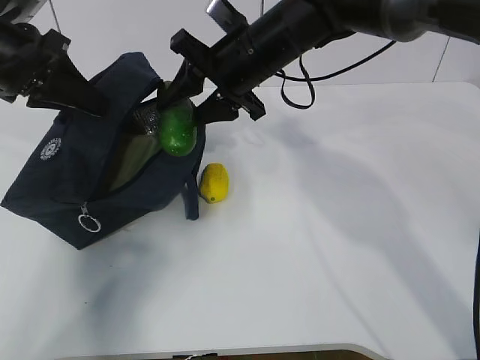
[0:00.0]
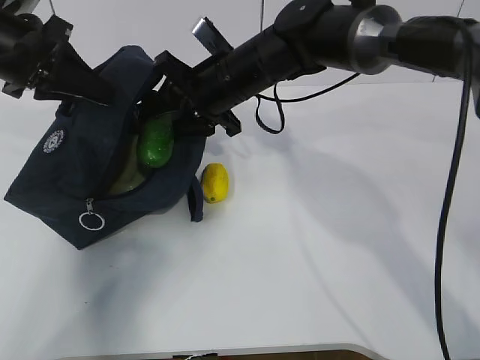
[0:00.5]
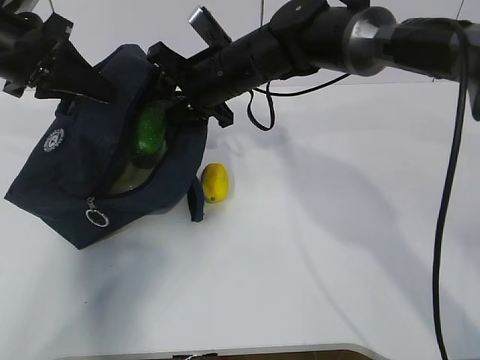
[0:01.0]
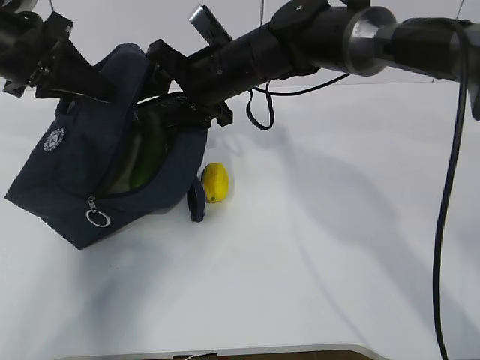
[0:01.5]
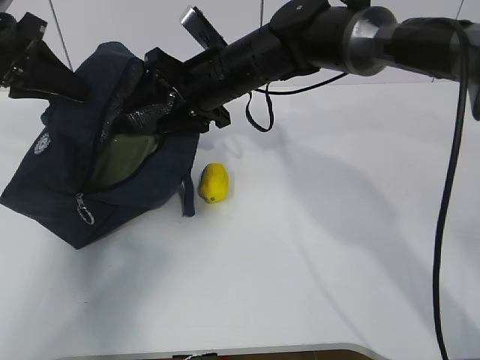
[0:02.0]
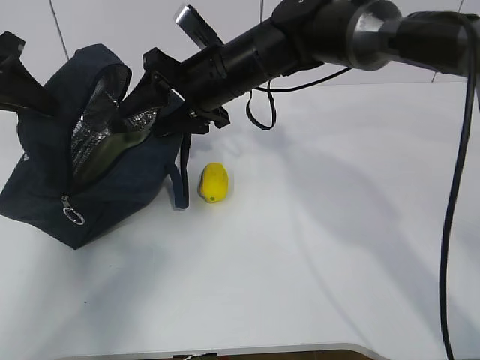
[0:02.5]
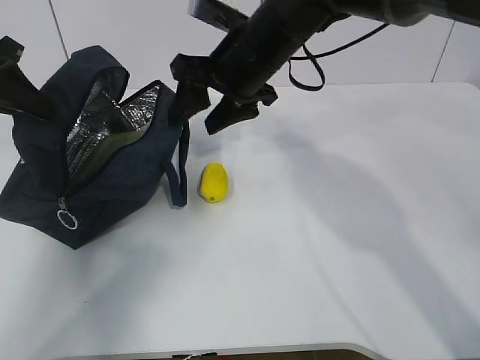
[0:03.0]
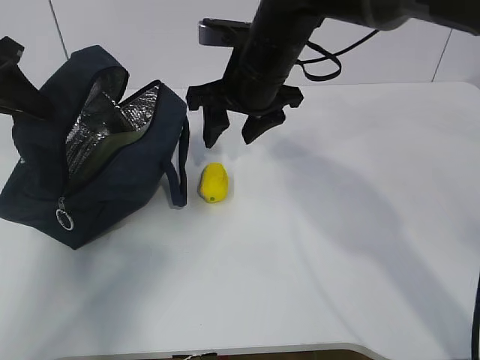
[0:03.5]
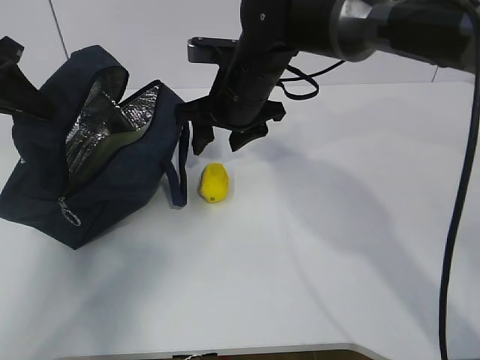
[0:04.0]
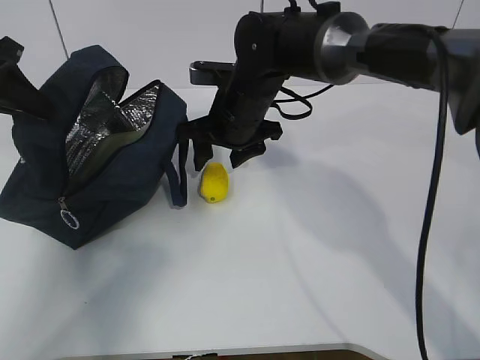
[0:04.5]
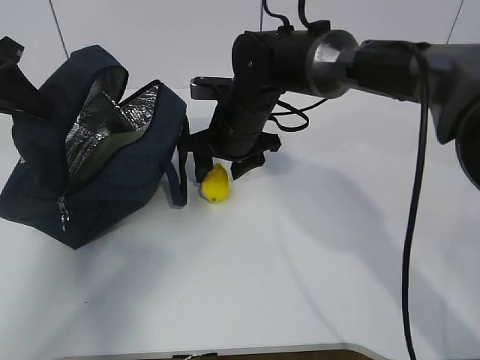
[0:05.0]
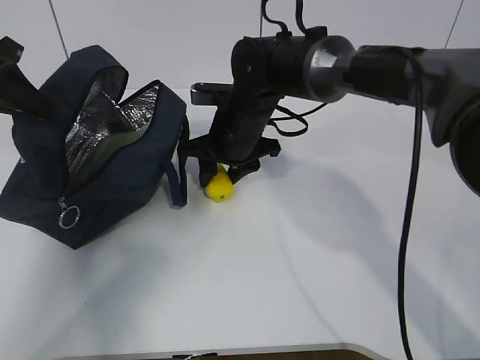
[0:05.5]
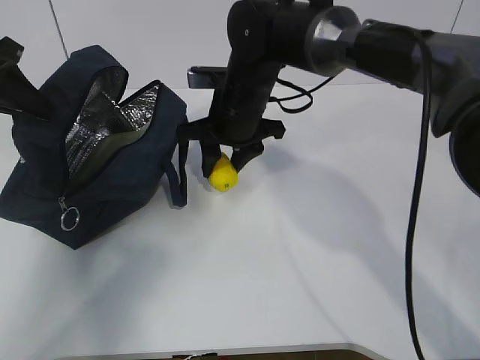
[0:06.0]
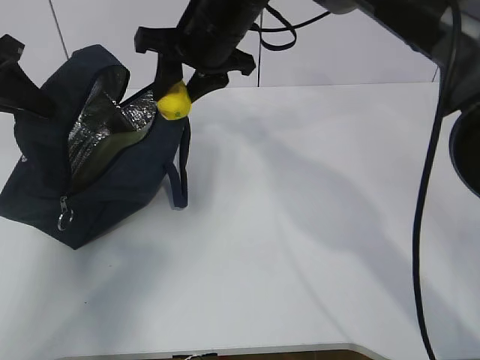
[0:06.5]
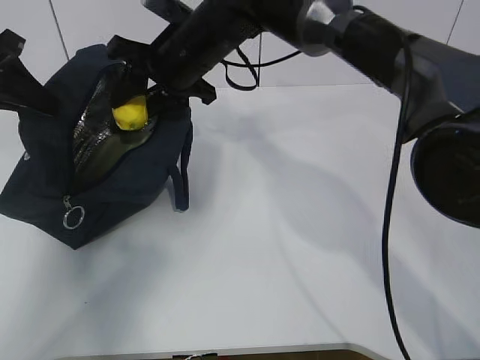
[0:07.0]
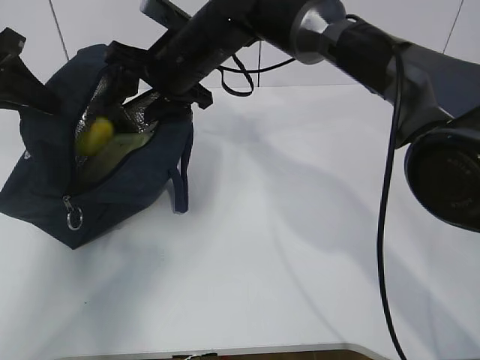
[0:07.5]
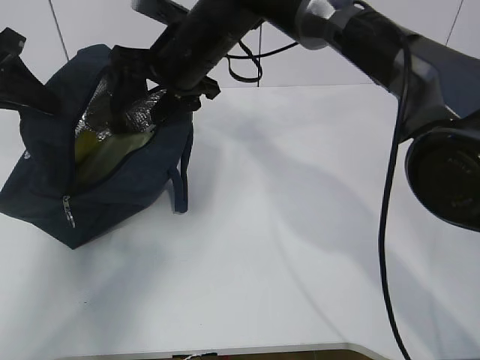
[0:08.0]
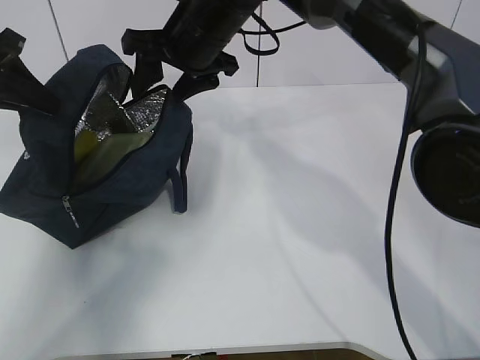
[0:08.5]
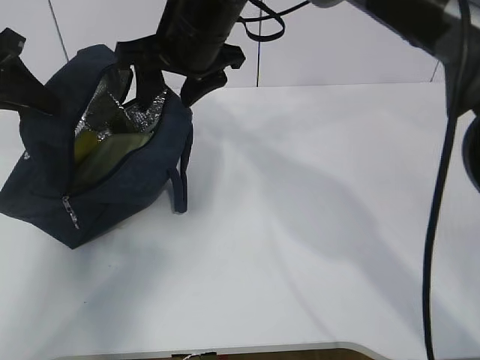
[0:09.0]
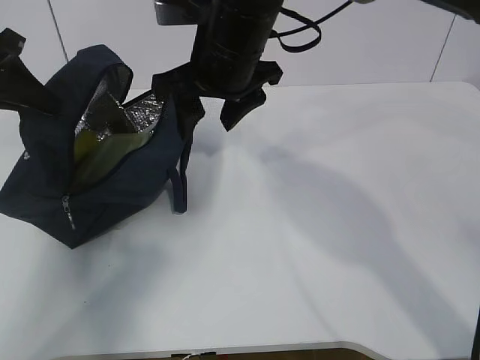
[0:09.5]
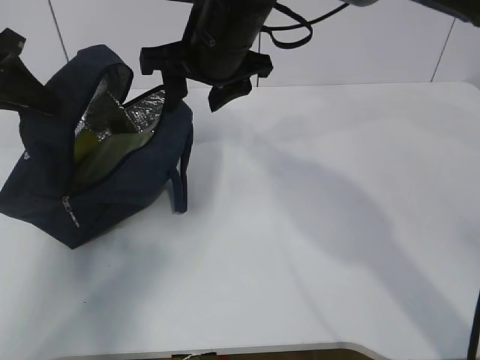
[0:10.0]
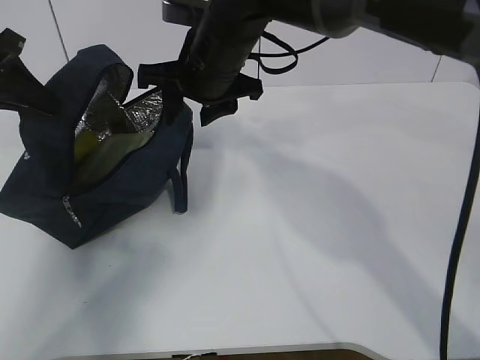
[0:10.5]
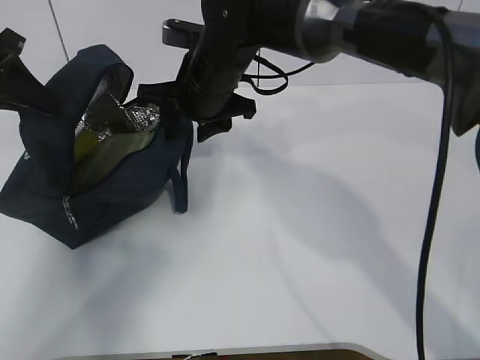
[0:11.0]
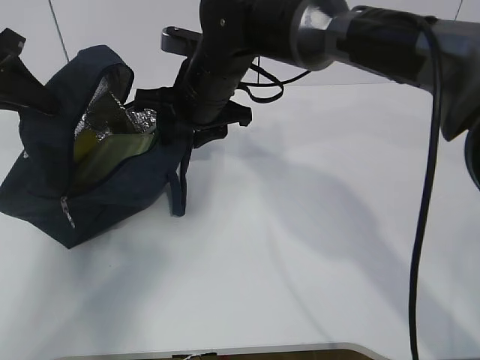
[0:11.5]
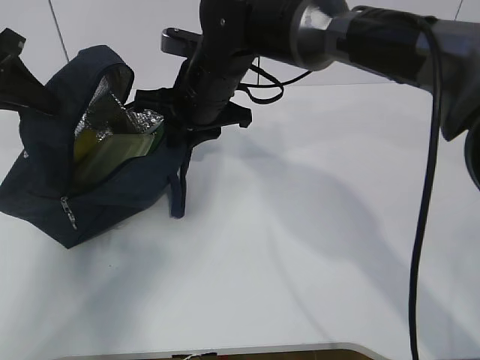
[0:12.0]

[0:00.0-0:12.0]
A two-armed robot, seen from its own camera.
Step, 0:02.0 to 0:05.0: Grab the lunch bag with your right hand.
Step, 0:05.5 to 0:08.0: Move the lunch bag to the right.
0:00.0 to 0:02.0: The grippers move only a little.
0:04.0 to 0:06.0: The grippers make only small movements.
0:06.0 to 0:08.0: The right gripper is displaced upward by about 5 cm.
0:08.0 to 0:10.0: The right gripper shifts by about 5 cm.
0:10.0 to 0:12.0: The right gripper goes approximately 5 cm downward, and closes up.

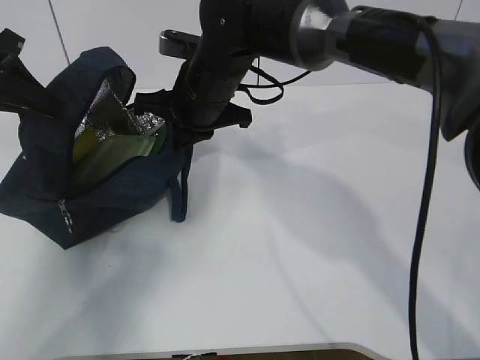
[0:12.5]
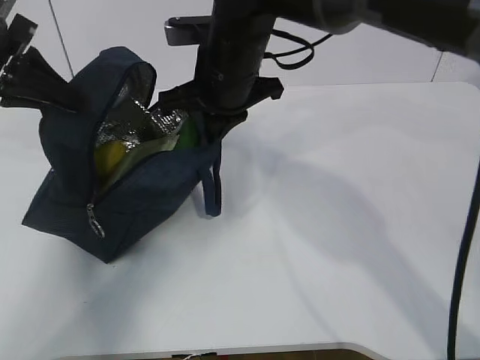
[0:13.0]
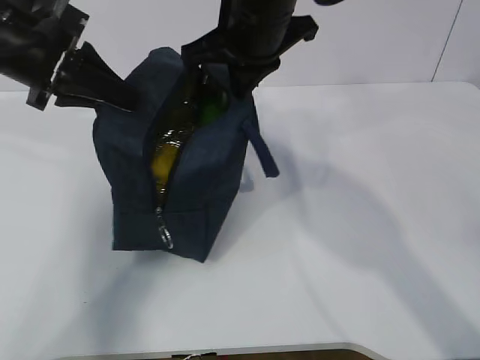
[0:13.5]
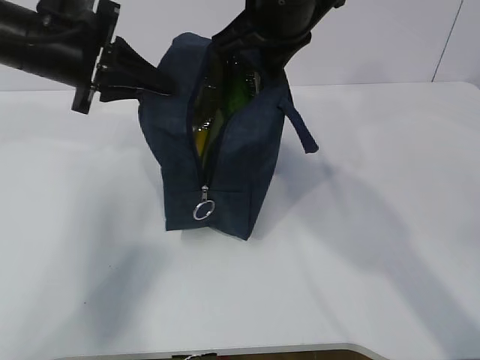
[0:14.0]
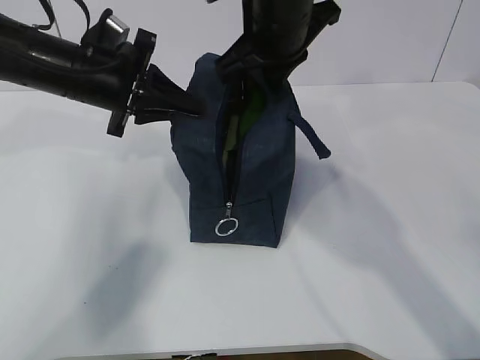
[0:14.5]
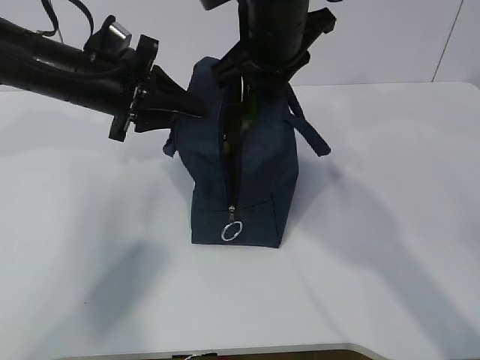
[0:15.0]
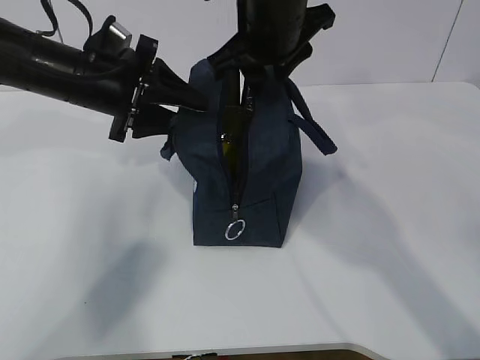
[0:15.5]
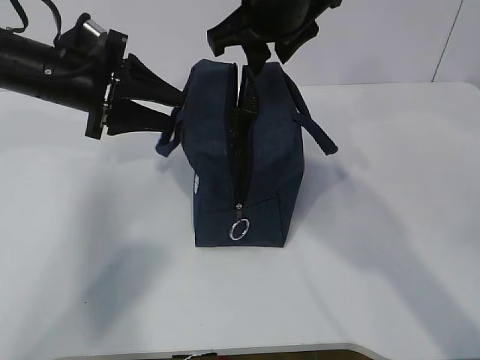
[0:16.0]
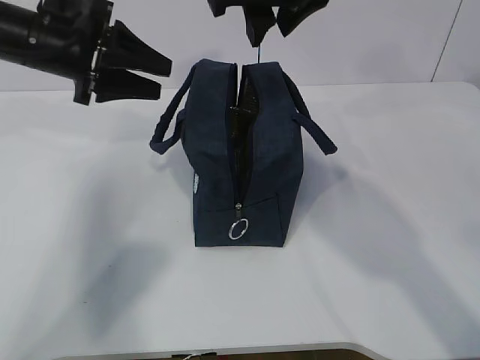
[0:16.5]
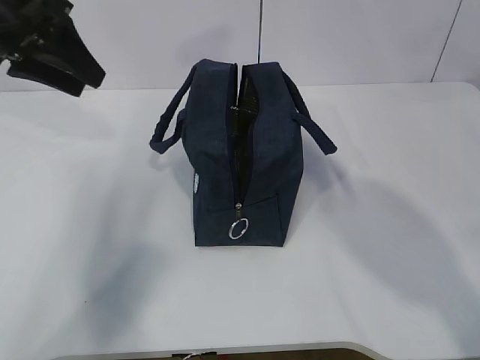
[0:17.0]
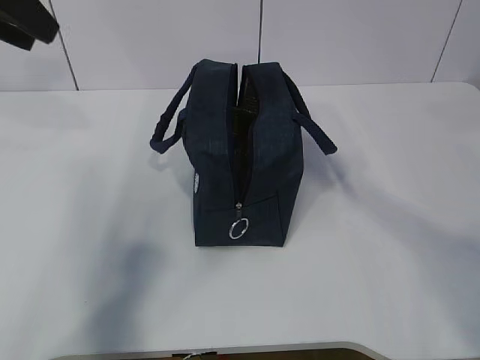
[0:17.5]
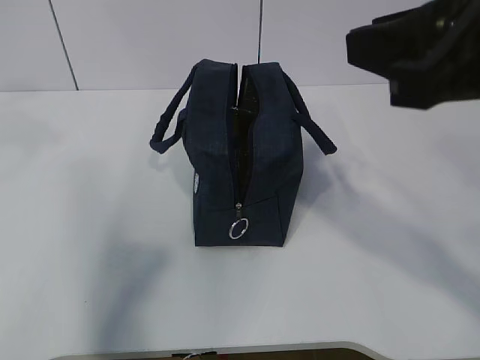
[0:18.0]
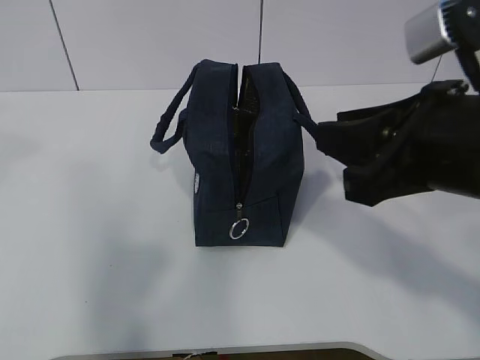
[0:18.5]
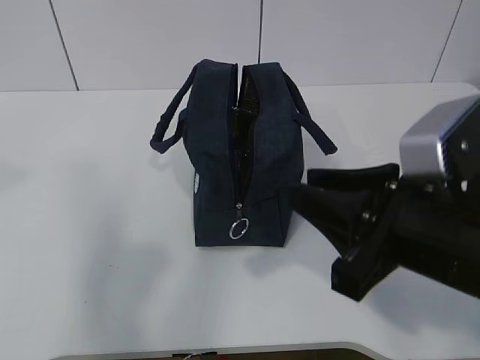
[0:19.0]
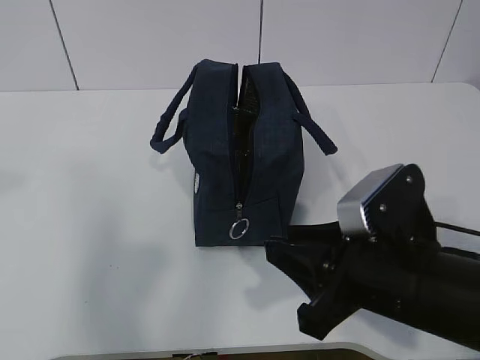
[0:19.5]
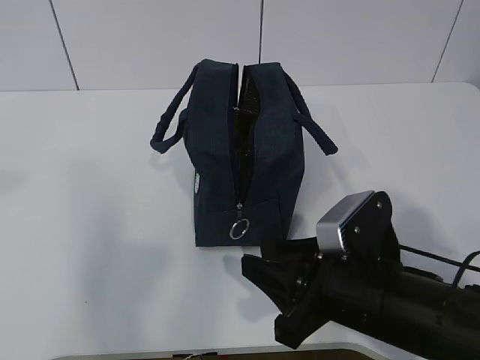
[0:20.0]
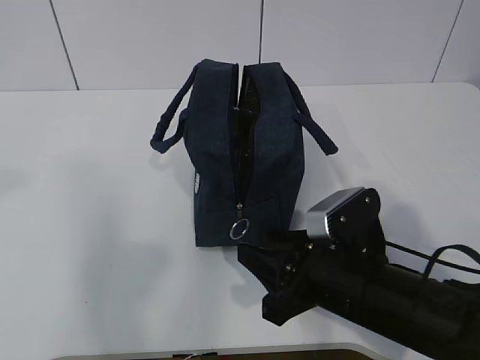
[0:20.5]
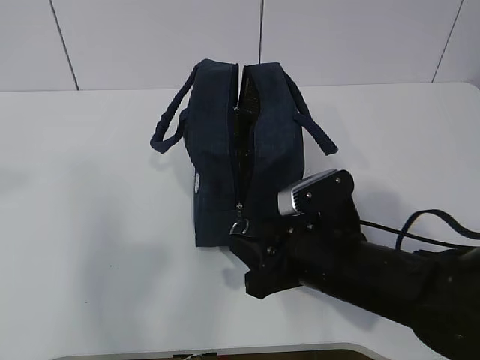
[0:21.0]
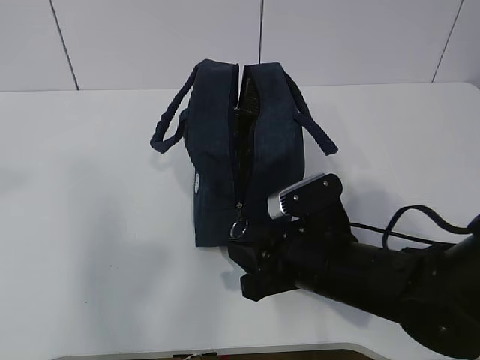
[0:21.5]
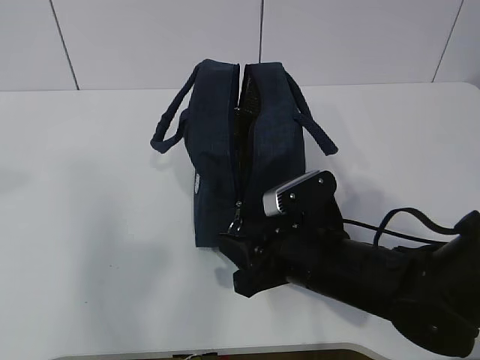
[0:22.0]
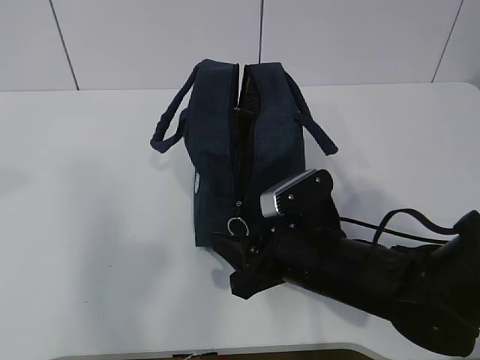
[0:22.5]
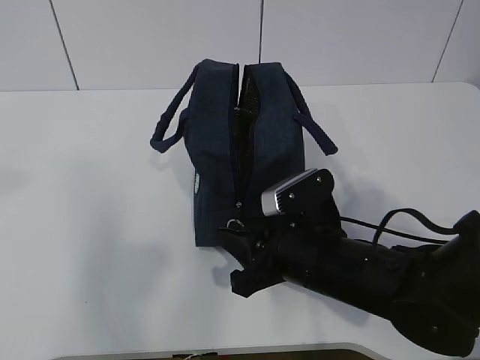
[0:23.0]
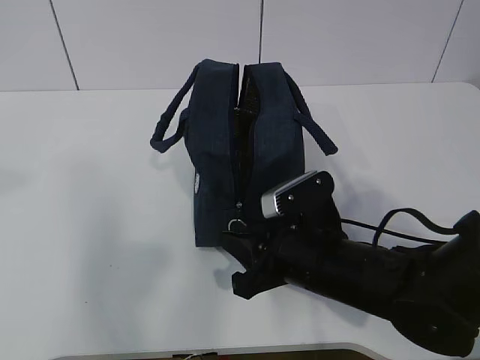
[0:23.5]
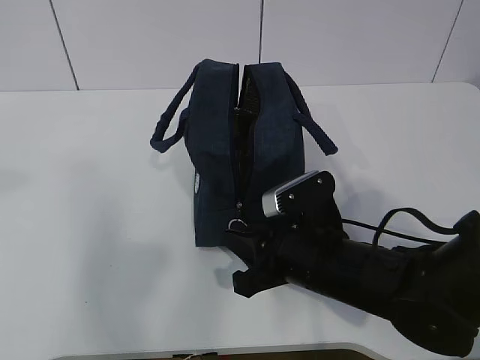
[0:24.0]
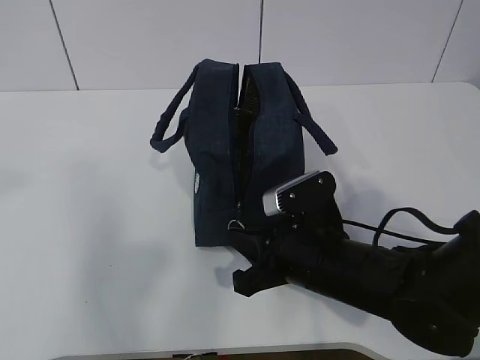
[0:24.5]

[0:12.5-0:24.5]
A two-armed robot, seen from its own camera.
0:12.5 to 0:14.5: The left gripper moves to the right, approximately 15 cm, while the right gripper heads upward and to the right, covering approximately 10 cm.
0:14.5 to 0:16.5: The right gripper is displaced upward by some 5 cm, and opens. The left gripper moves roughly 5 cm, and opens up.
0:16.5 to 0:18.5: The right gripper moves backward, to the right and downward, approximately 20 cm. The left gripper moves backward and upward, about 30 cm.
0:18.5 to 0:20.5: The left gripper travels backward by about 5 cm, while the right gripper shifts roughly 20 cm downward.
0:20.5 to 0:22.5: The grippers make only small movements.
0:22.5 to 0:24.5: The right gripper closes up.

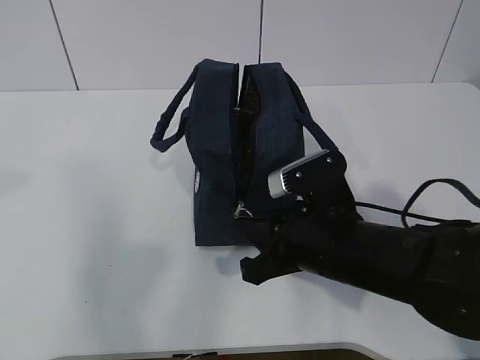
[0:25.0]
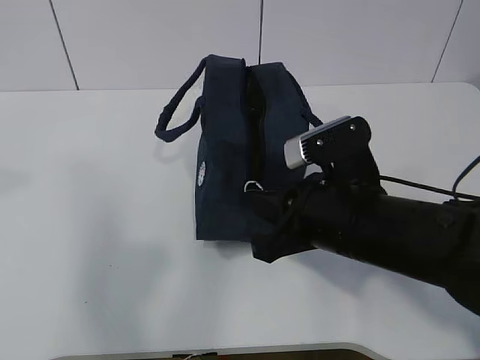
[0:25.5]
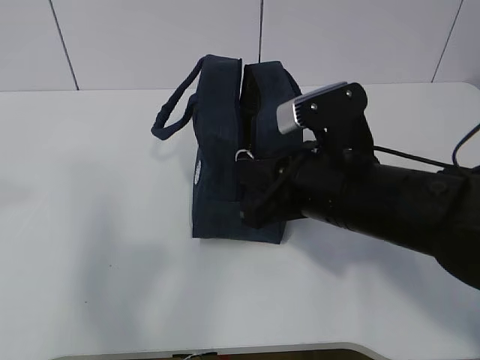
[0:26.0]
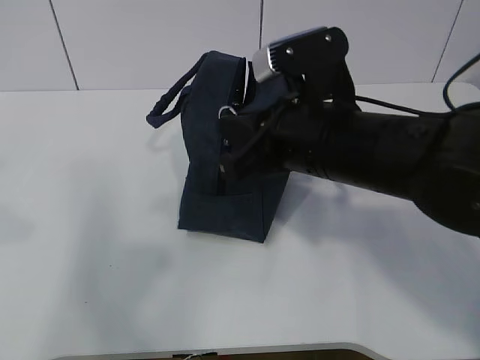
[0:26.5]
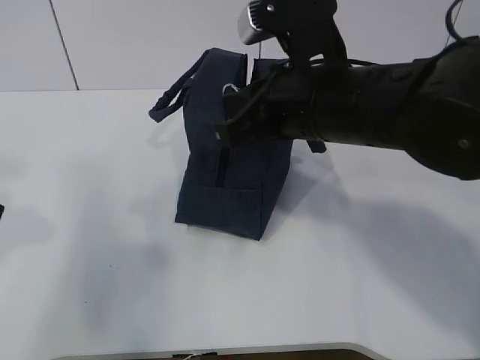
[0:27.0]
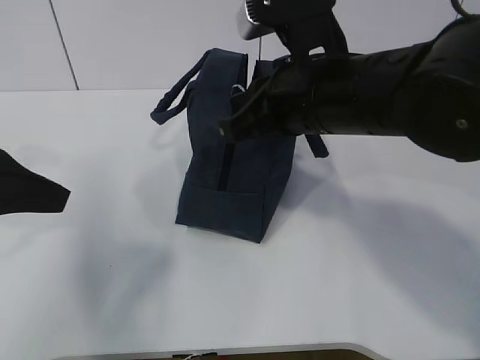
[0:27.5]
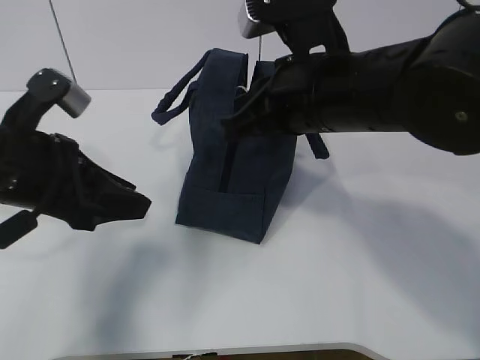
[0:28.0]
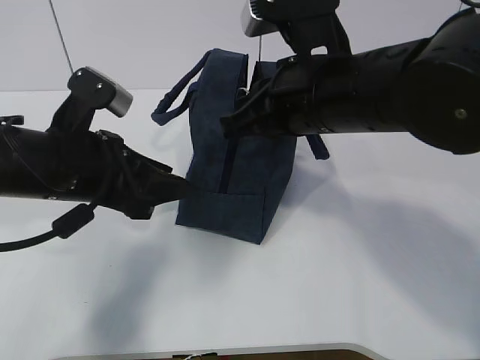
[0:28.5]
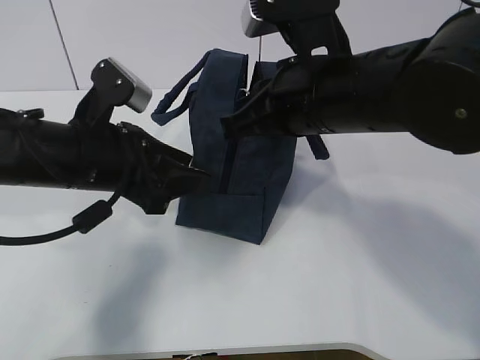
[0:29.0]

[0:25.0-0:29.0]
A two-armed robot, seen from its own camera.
Step, 0:25.0 to 0:27.0: Grab the lunch bag with your left hand.
0:25.0 to 0:27.0: The left gripper moves downward and forward, approximately 15 cm. Meanwhile the right gripper heads upward, covering approximately 15 cm.
0:27.0 to 0:29.0: The left gripper heads forward, to the right and downward, covering roughly 20 cm.
